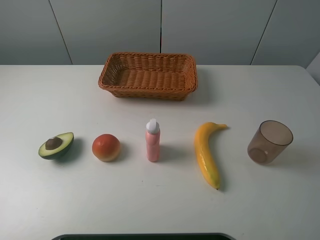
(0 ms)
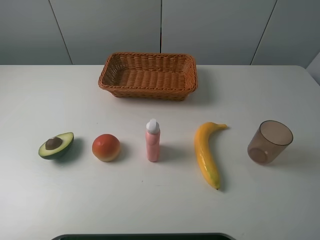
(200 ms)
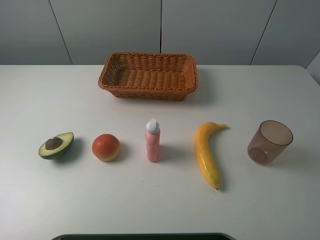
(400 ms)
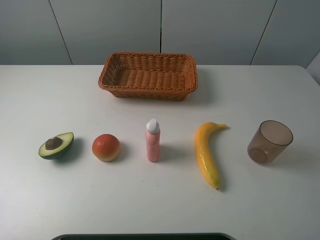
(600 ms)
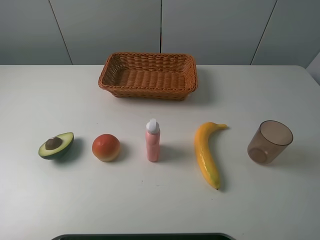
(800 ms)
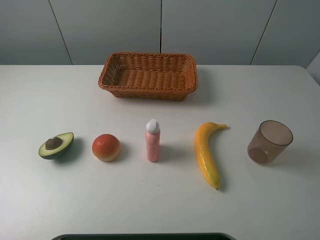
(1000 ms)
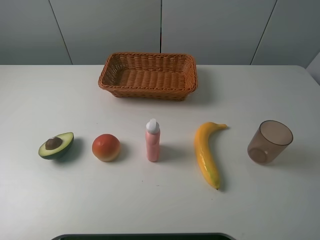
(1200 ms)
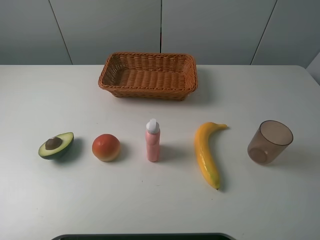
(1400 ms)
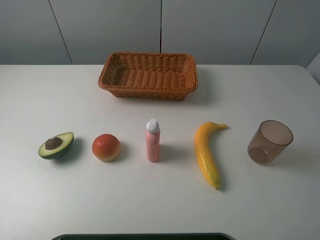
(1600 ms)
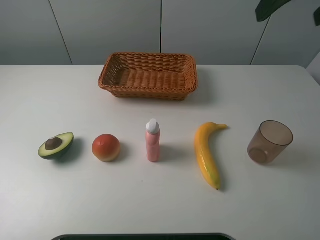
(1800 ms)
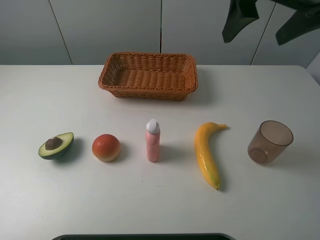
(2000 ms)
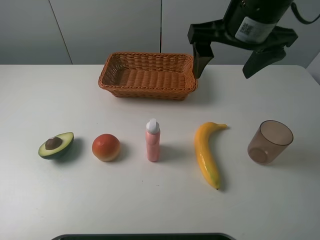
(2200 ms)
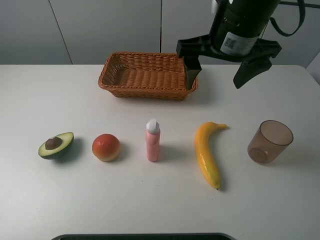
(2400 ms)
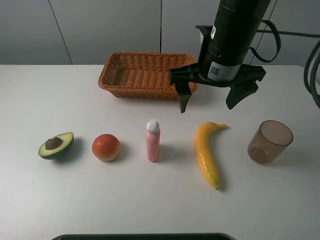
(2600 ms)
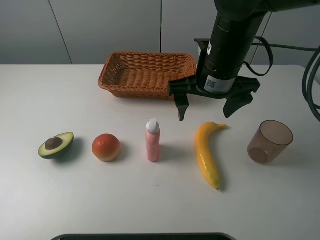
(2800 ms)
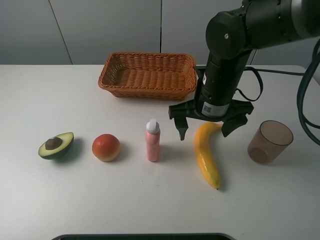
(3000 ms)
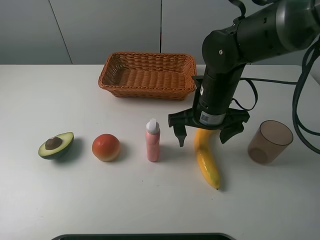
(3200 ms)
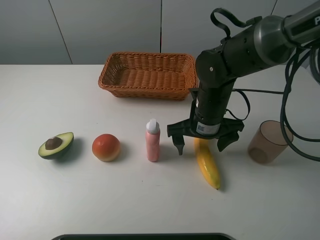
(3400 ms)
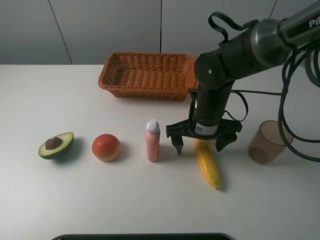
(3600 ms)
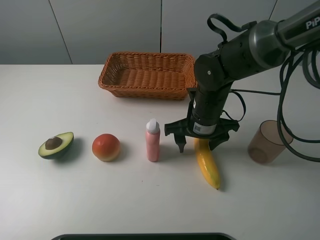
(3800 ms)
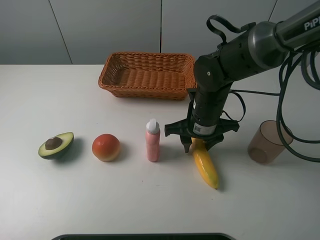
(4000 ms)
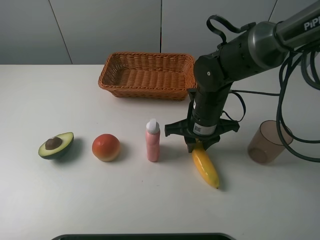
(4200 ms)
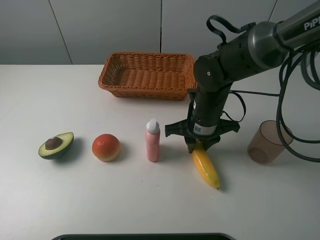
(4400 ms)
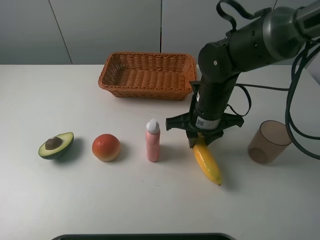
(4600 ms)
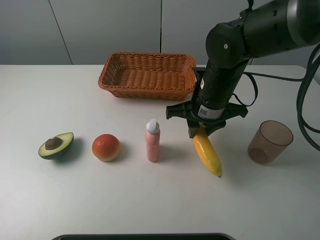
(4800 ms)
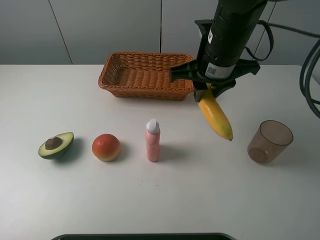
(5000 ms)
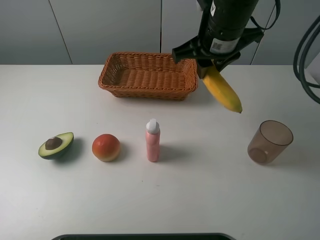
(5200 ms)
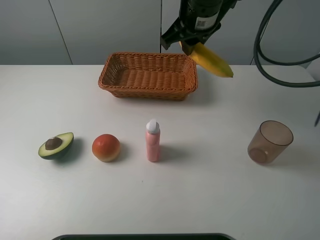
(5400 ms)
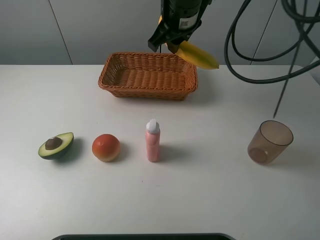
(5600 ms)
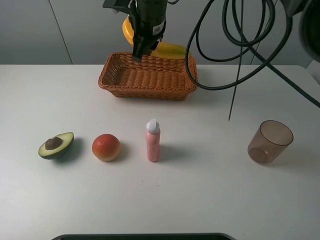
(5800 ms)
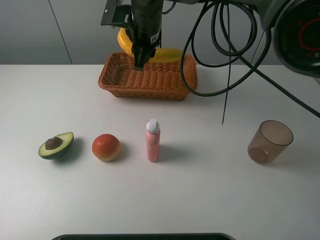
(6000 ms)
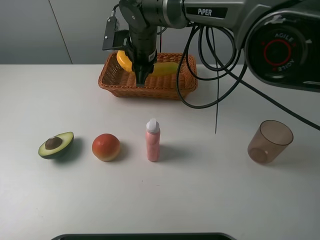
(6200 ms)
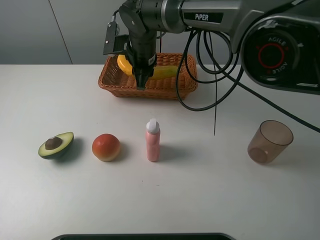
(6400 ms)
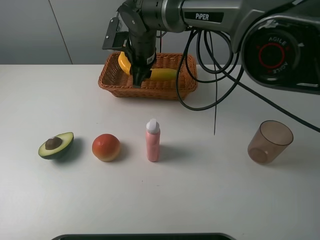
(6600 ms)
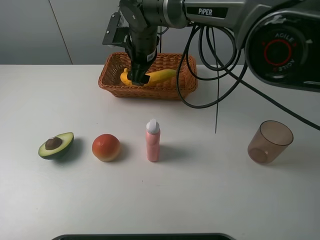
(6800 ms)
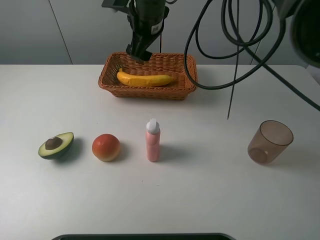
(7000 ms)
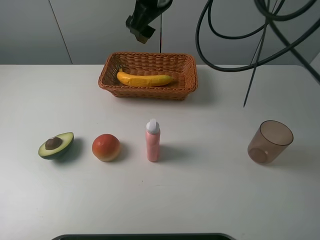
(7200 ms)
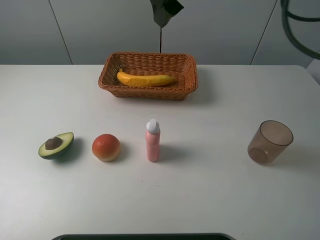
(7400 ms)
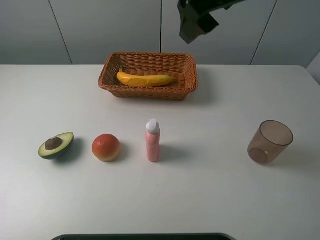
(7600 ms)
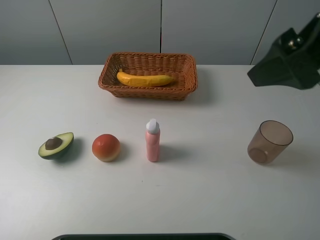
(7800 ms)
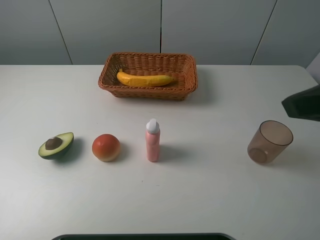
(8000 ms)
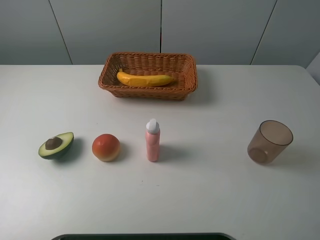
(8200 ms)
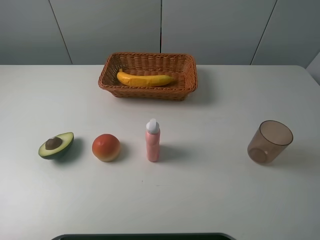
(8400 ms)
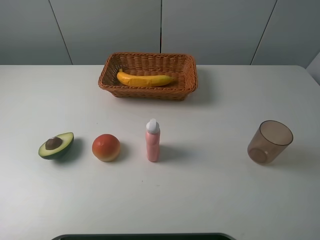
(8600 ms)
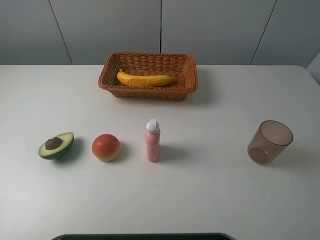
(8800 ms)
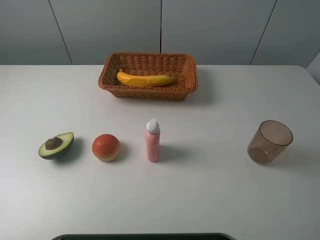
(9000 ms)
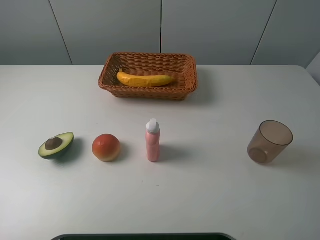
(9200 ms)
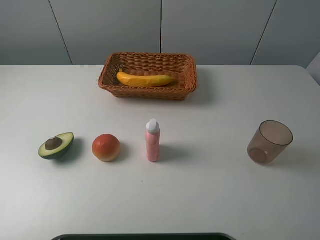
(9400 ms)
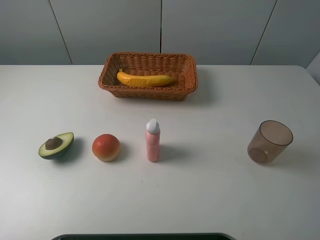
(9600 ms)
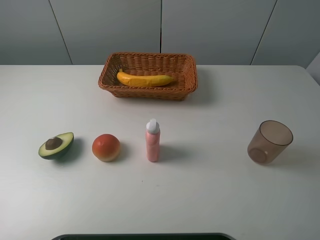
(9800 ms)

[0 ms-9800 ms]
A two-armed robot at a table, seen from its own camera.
Task of the whole recording: randomly pick up an item from the table and put it in the basket.
Step, 0 ms to 4400 ms: Grasp the banana with the right gripper.
Step, 4600 ms to 7200 ms: Place the banana into the basket with the right gripper.
1400 ms to 2800 ms: The right gripper heads downward, to the left and forward, covering approximately 30 cm.
2800 ms to 4200 ms: The right gripper heads downward, covering roughly 10 cm, and closes.
4200 ms to 5600 ms: The right gripper moves upward, forward and to the left, roughly 20 cm.
5600 ms to 7000 ms: The right gripper travels downward and back again, roughly 10 cm each way, and opens.
7000 ms to 8400 ms: The right gripper is displaced backward and to the right by approximately 50 cm.

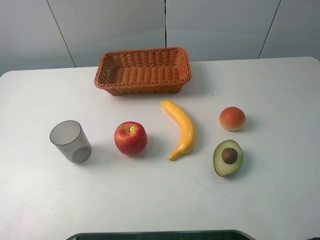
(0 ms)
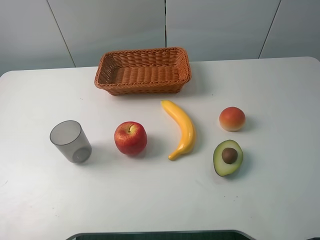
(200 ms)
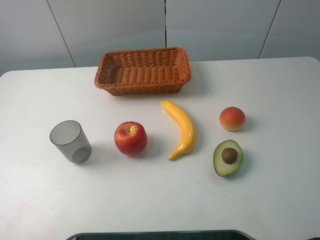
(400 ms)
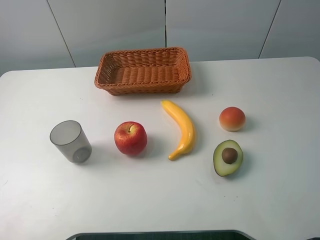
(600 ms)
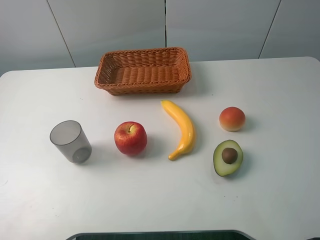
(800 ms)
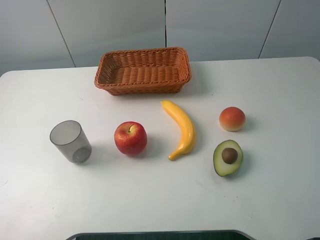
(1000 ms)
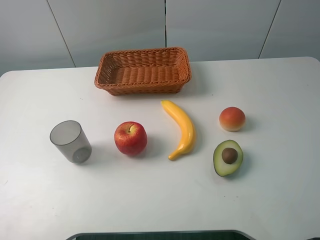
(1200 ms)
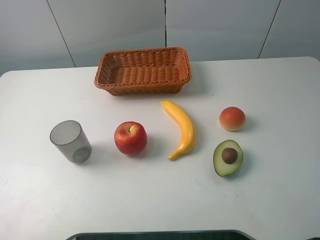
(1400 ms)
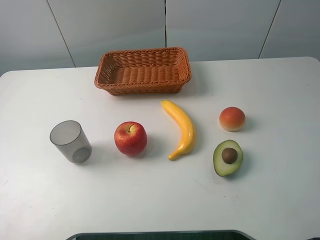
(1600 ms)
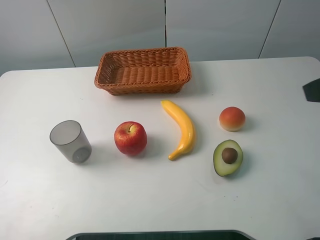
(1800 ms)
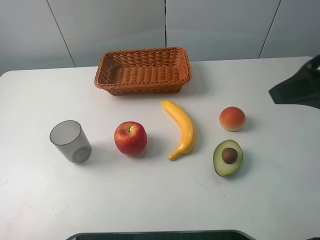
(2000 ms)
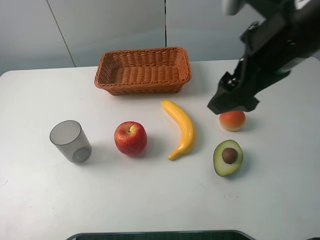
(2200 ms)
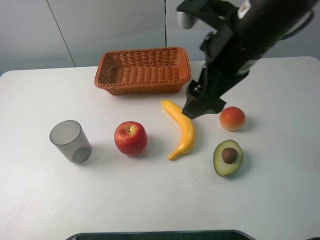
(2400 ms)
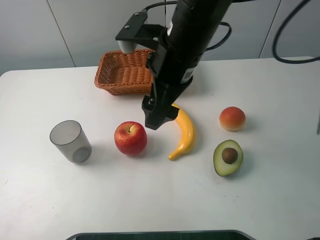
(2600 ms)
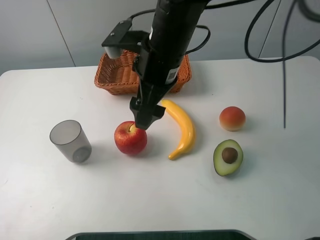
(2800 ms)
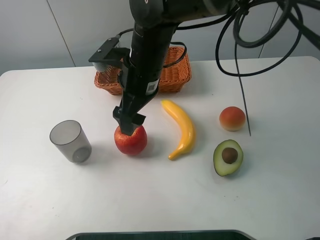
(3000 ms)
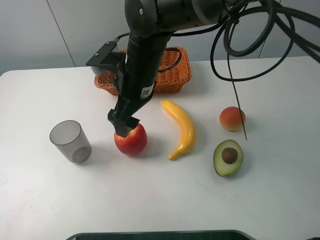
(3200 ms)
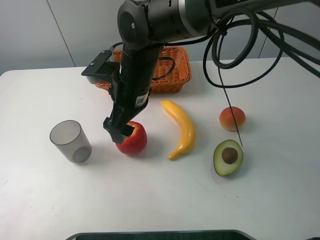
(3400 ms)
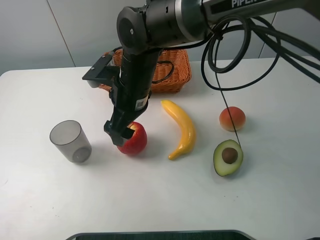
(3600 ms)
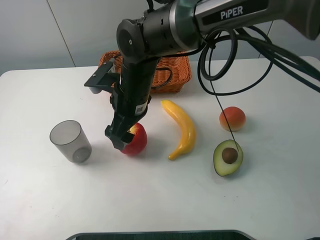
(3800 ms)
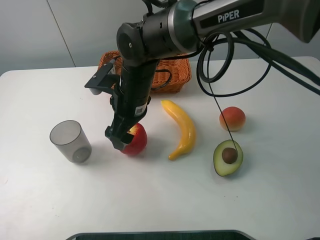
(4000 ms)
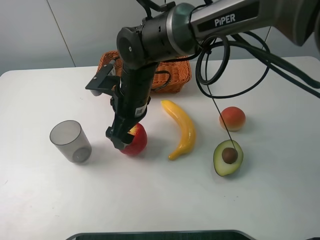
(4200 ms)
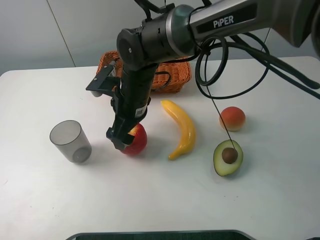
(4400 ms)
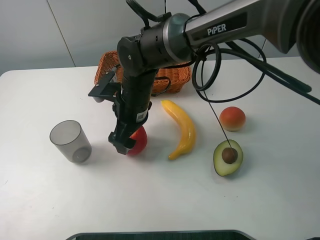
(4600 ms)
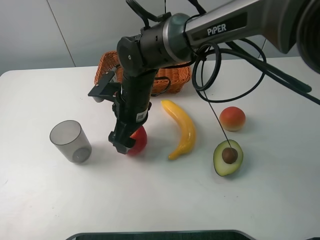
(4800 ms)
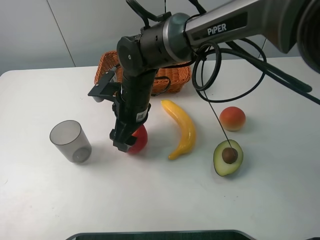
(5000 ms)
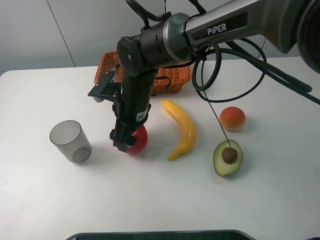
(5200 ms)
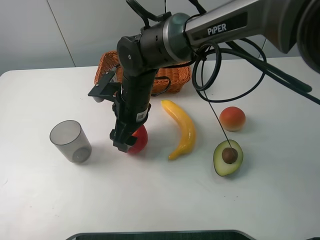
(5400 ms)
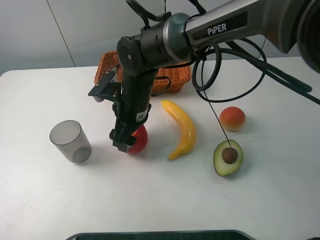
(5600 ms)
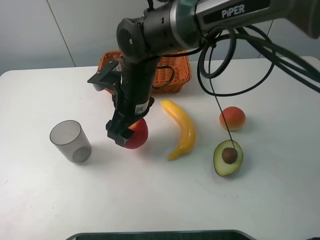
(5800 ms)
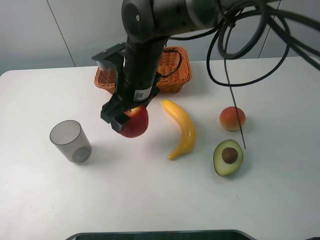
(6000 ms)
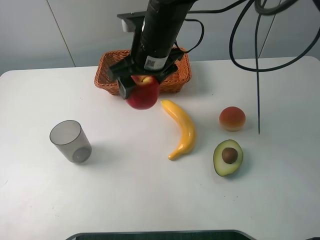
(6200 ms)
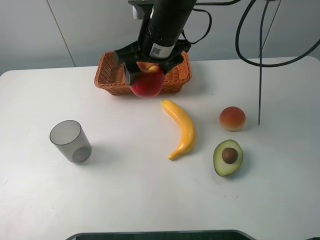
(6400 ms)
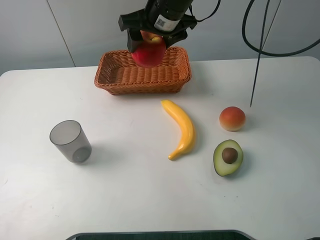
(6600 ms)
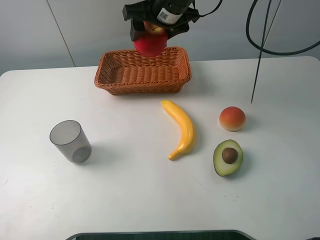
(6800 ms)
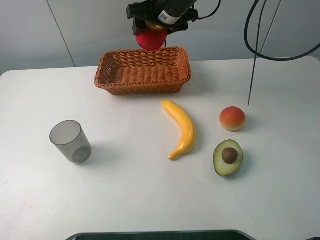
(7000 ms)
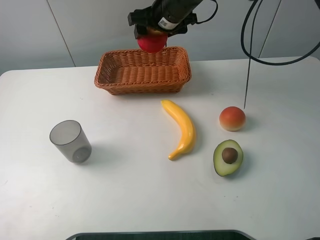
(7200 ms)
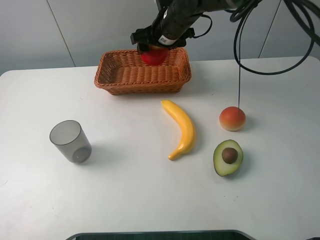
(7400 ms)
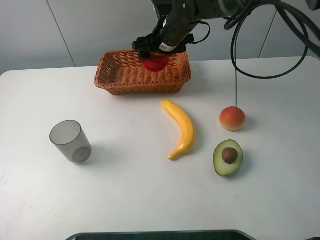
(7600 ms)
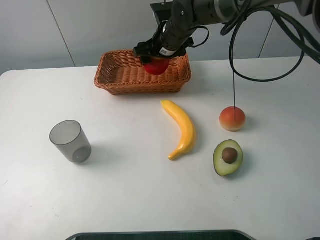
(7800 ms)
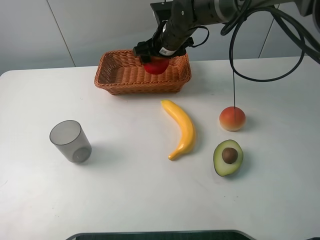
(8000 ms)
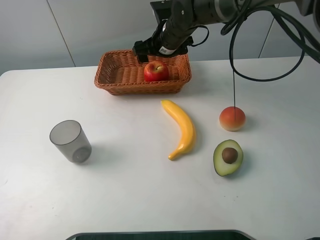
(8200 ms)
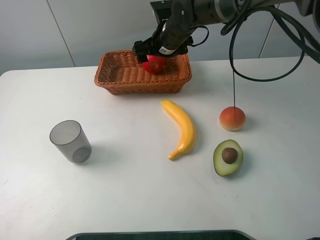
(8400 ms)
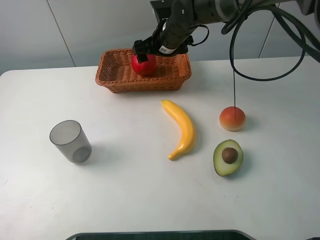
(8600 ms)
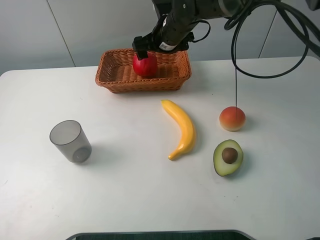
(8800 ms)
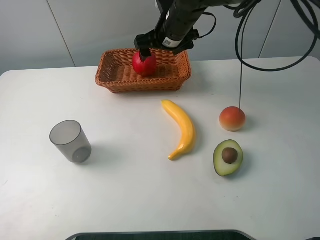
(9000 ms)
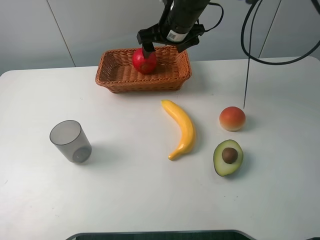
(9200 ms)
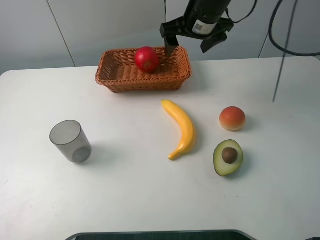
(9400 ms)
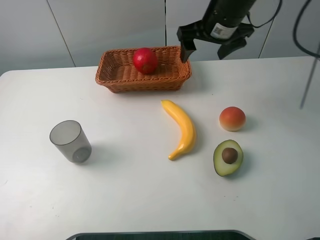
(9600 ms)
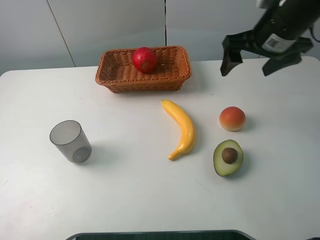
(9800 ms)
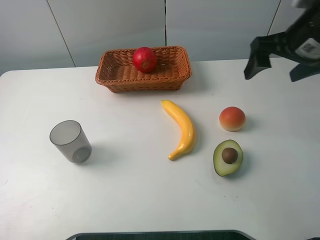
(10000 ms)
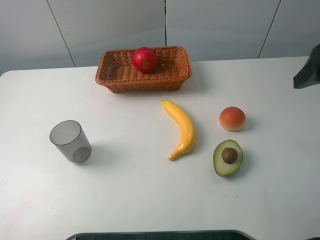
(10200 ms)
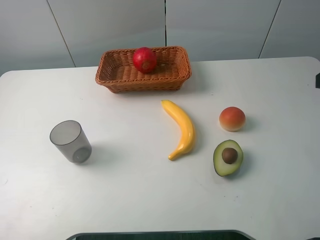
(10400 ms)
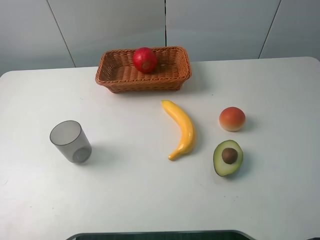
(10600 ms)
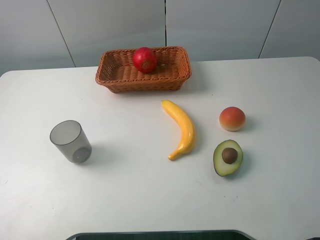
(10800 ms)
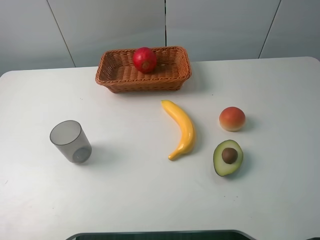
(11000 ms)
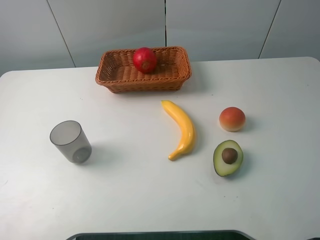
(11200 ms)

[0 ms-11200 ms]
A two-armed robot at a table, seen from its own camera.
Task of the whole recording: randomly pick up an item from the table and put it in the basket.
Step, 0 ms to 5600 ms: Grasp the apple with the right gripper.
Step, 5800 ms to 9200 ms: Place the apple into the basket with the right gripper.
1600 ms to 3200 ms: The right gripper shifts some 40 cm to the left, forward and downward.
3200 ms to 4800 ms: The right gripper goes approximately 5 cm downward, and closes its fingers.
4800 ms to 6400 ms: The right gripper goes approximately 15 cm upward, to the right and forward.
6400 ms to 8000 ms: The right gripper moves forward and downward, some 10 cm.
8000 ms to 9600 ms: The right gripper is displaced to the right, upward and backward by about 15 cm, and opens its fingers.
9600 ms to 11200 ms: The right gripper goes some 40 cm backward and to the right.

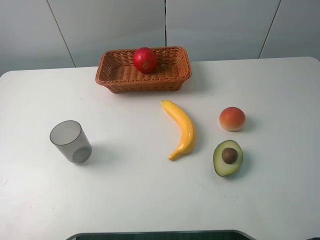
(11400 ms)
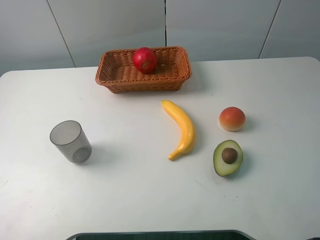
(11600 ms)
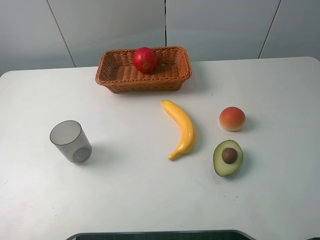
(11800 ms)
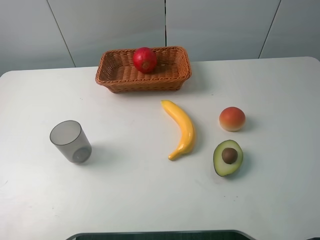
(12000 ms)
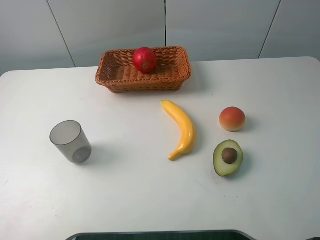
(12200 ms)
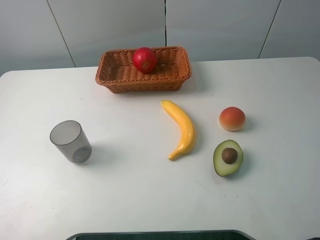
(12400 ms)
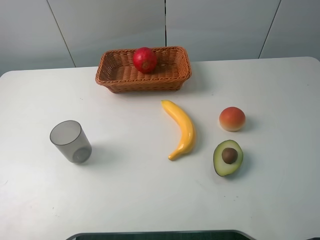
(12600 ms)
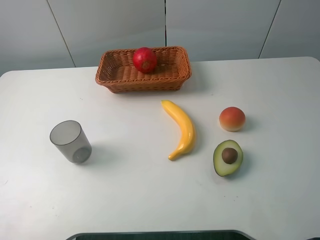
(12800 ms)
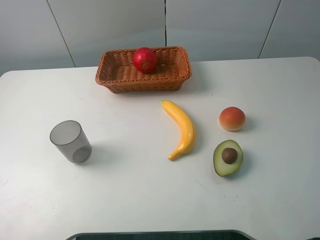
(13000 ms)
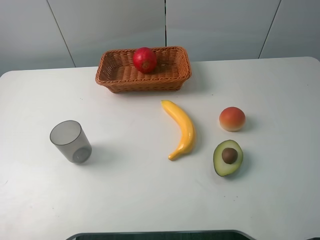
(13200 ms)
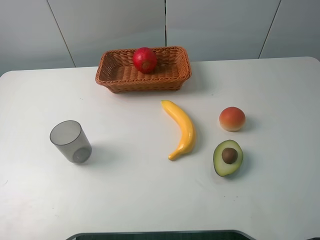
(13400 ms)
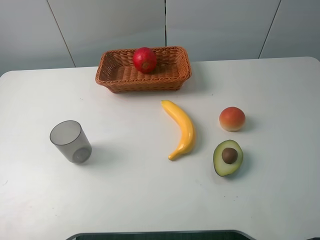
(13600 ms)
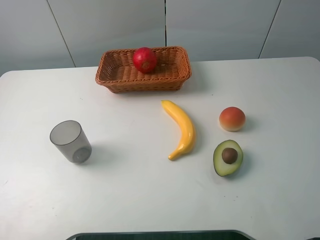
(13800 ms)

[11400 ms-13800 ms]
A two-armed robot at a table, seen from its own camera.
Task of the whole recording: randomly pick up an item from the table and put it in the basket.
11400 ms to 12600 ms: Both grippers stay put.
12600 ms to 13800 ms: The two grippers keep their place.
